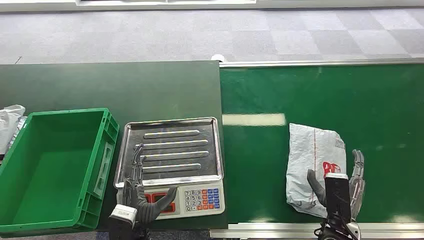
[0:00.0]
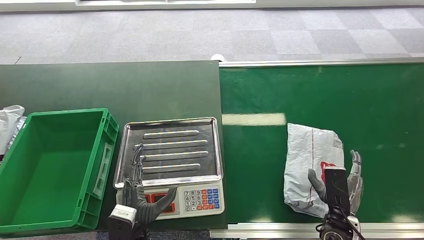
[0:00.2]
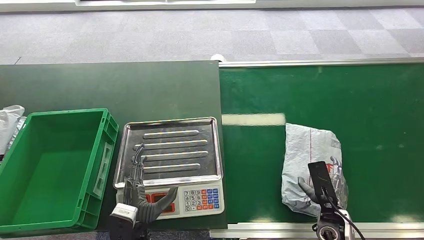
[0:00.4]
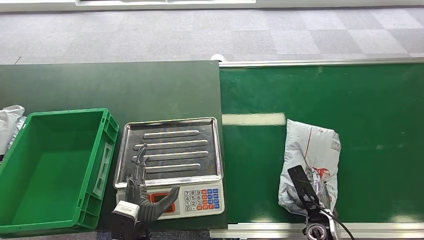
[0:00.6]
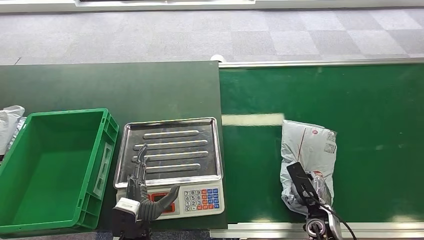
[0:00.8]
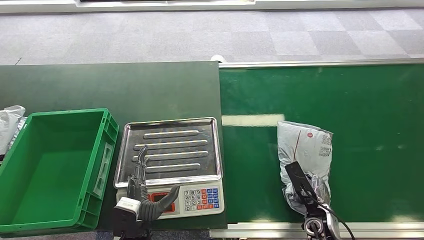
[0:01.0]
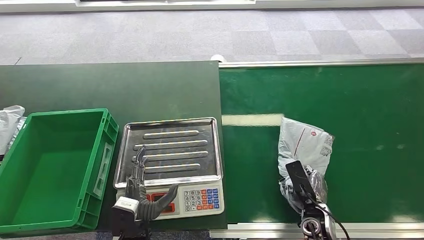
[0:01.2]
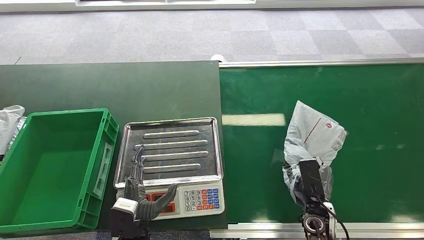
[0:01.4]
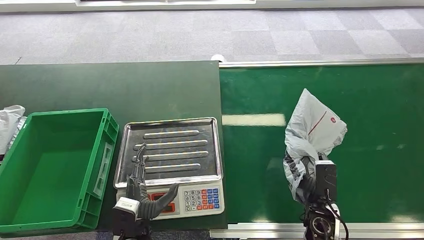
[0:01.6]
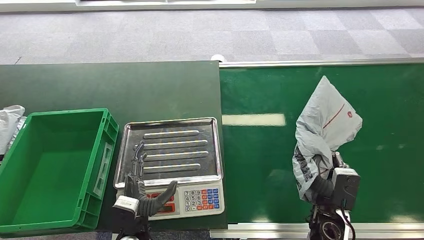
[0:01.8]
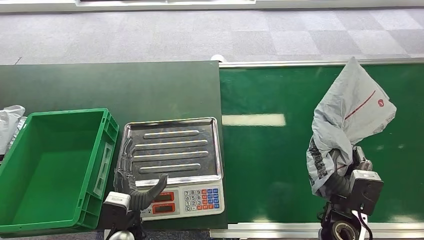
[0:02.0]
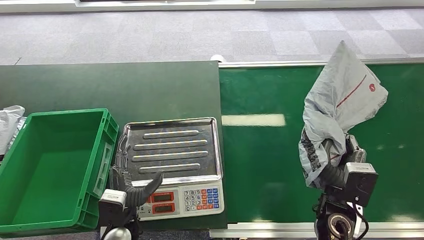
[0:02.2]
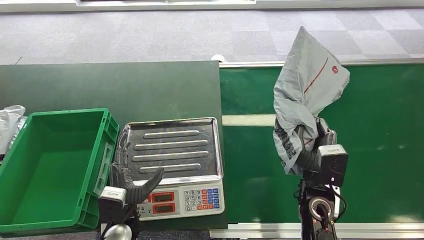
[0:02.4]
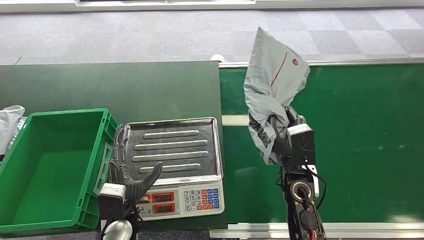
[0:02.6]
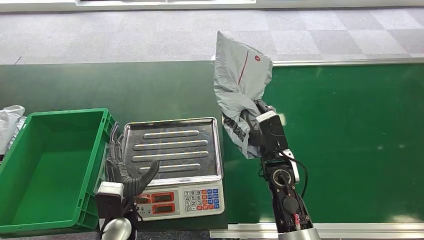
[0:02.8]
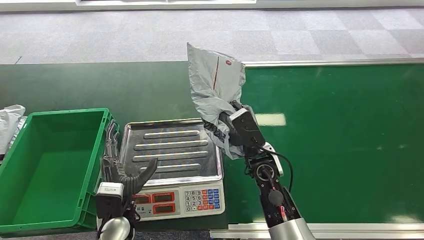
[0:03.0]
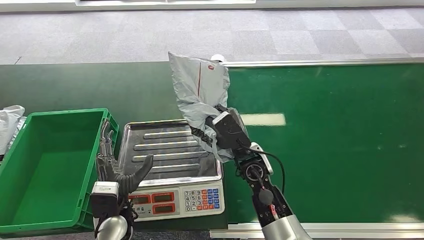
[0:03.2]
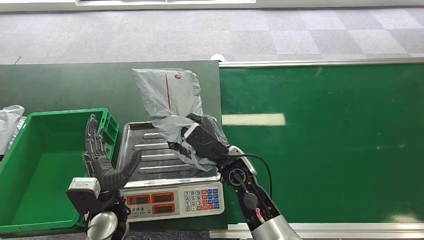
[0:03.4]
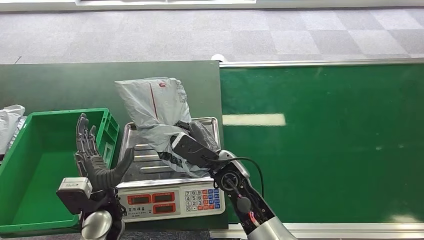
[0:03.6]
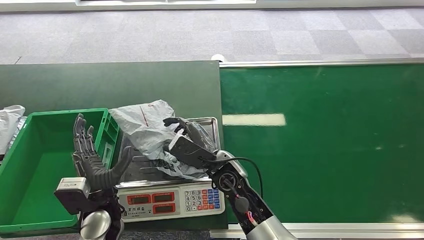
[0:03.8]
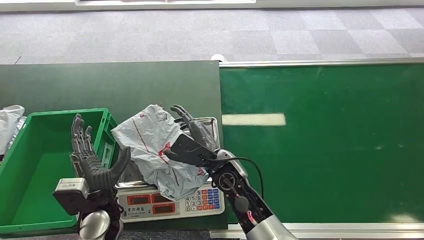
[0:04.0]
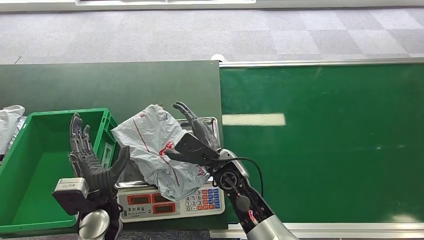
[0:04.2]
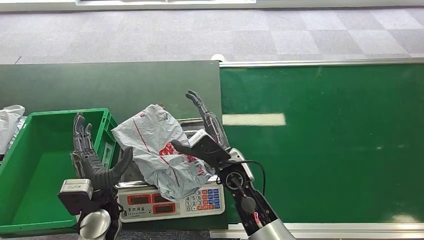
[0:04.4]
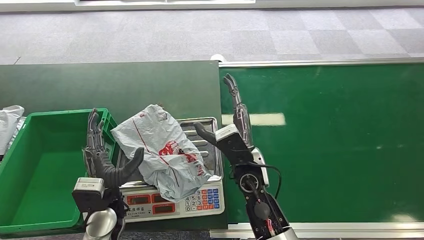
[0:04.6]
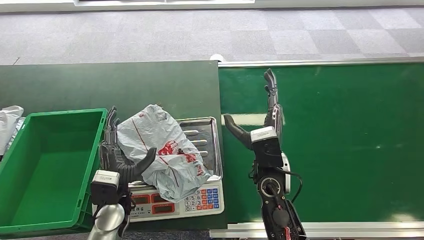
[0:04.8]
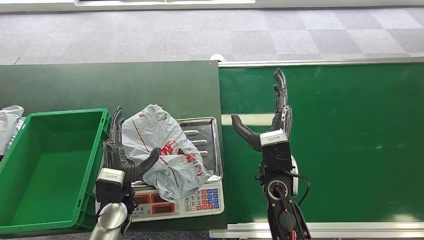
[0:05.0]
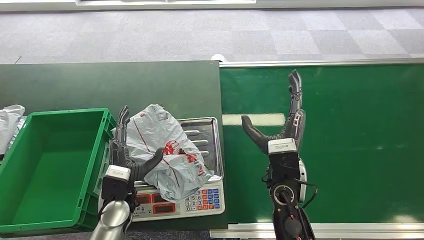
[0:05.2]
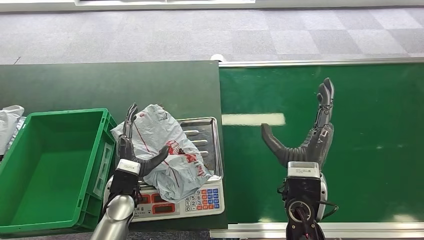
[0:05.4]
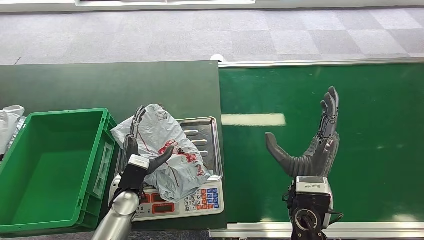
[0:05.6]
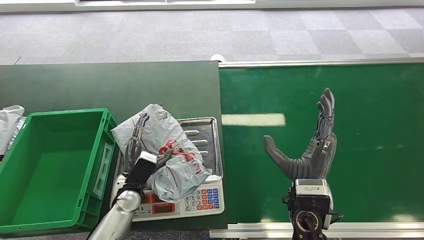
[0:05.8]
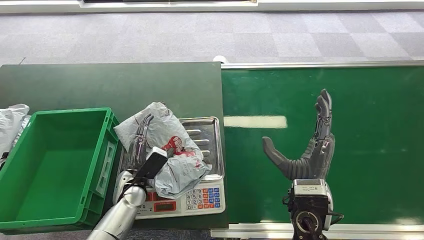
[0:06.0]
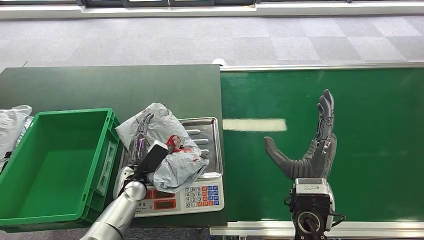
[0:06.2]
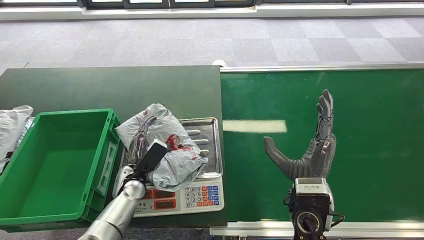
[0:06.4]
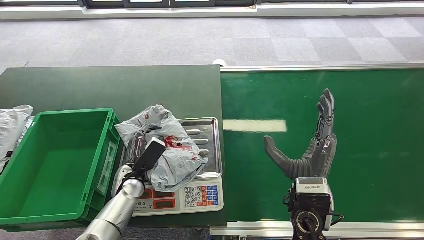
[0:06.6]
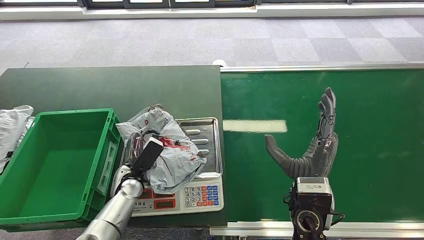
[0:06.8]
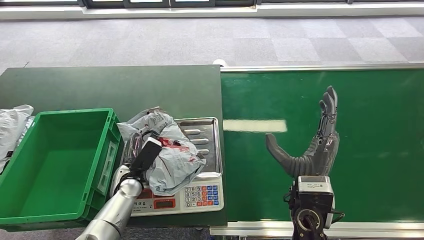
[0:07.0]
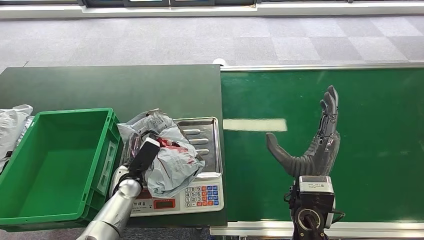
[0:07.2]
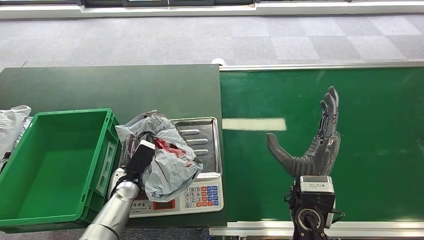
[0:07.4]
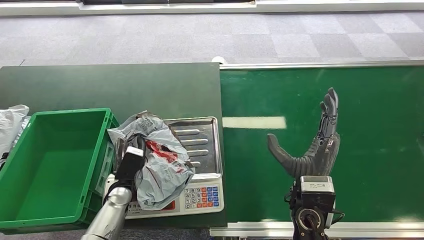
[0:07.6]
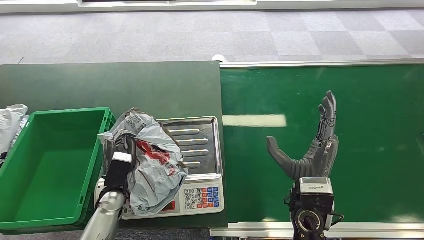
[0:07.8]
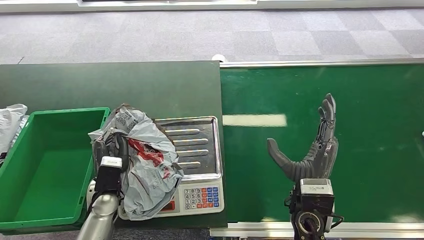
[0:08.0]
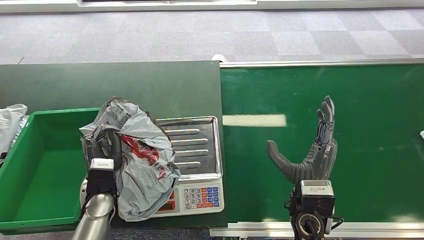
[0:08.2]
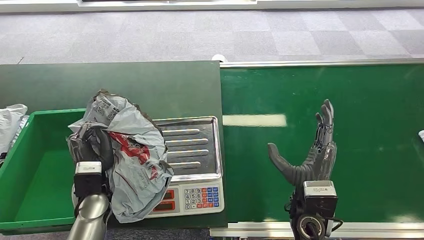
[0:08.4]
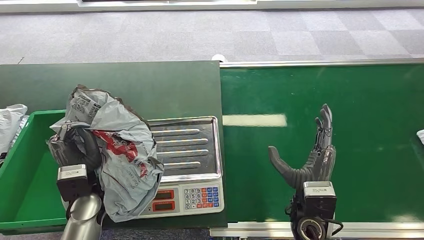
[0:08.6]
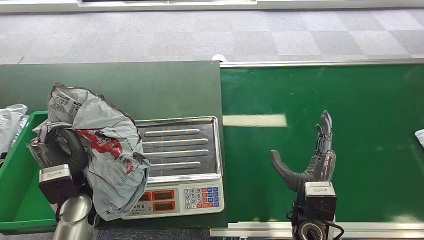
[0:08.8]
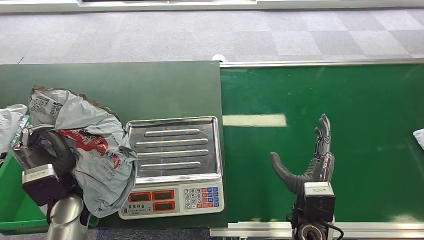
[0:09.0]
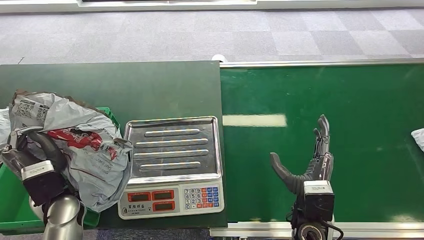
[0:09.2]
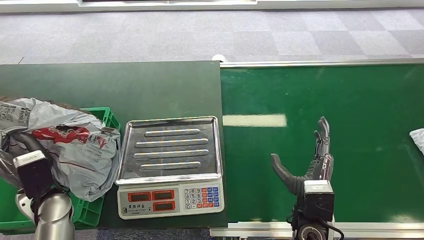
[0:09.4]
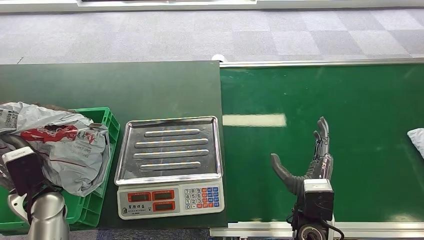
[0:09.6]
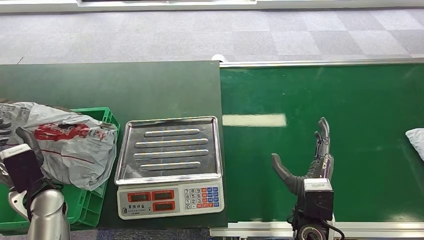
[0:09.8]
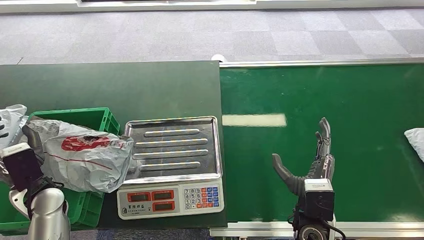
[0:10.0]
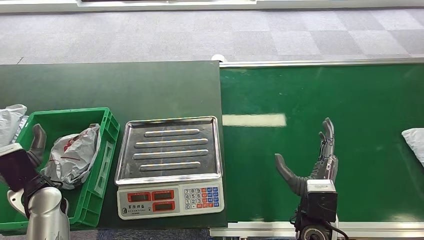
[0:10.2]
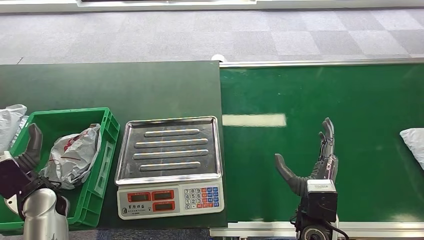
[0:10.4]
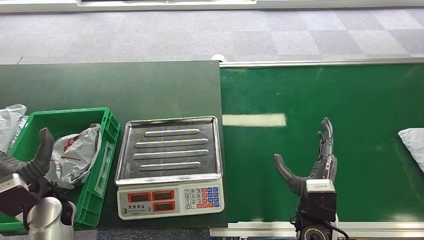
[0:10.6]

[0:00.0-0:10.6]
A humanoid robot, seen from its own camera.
Step, 0:00.0 to 0:00.6: Pick up the package from the conveyor belt.
Step, 0:03.0 to 0:04.2: Place the package onto the inbound machine.
Step, 0:05.8 to 0:08.6: Pick up the package from the inbound machine.
Step, 0:09.2 to 0:10.6: Place the package into the parcel locker.
0:01.6 to 0:03.0: The right hand goes some 20 cm to the left, upward and forward; the left hand changes place by approximately 5 cm.
0:03.0 to 0:04.6: The right hand shifts by approximately 5 cm.
0:06.0 to 0:07.6: The hands make only small movements.
